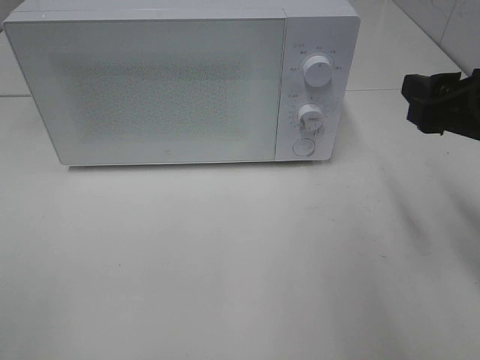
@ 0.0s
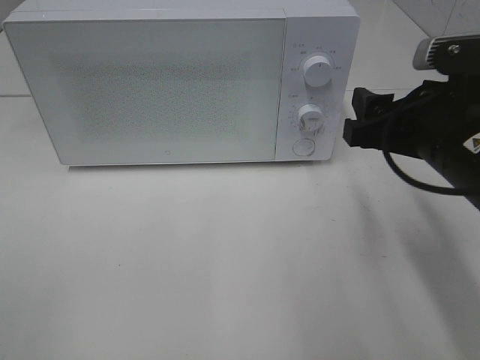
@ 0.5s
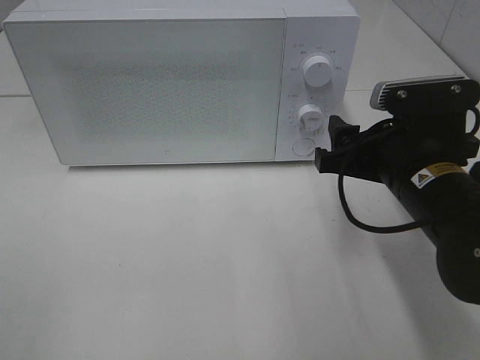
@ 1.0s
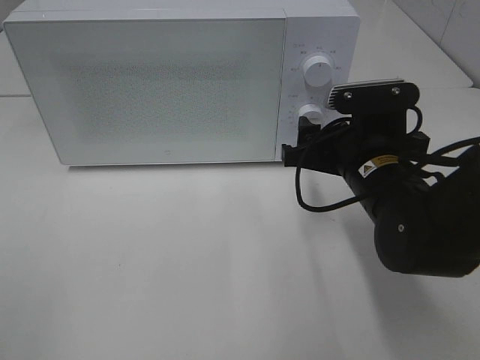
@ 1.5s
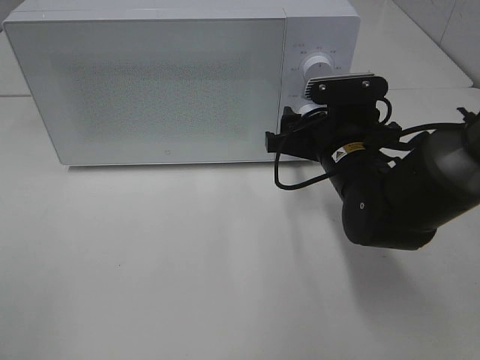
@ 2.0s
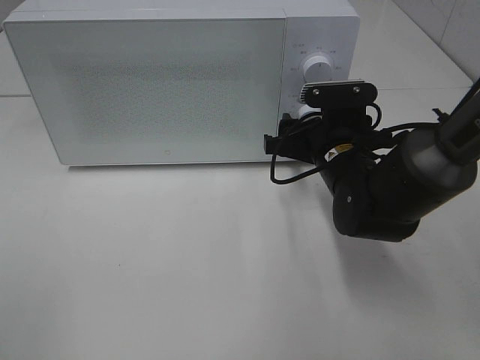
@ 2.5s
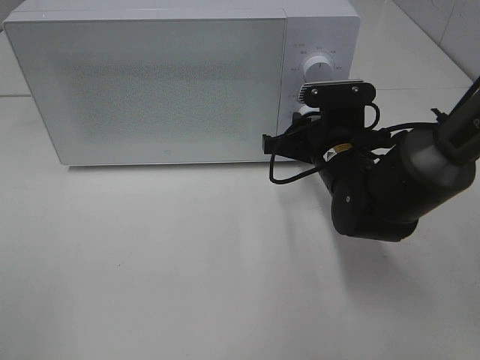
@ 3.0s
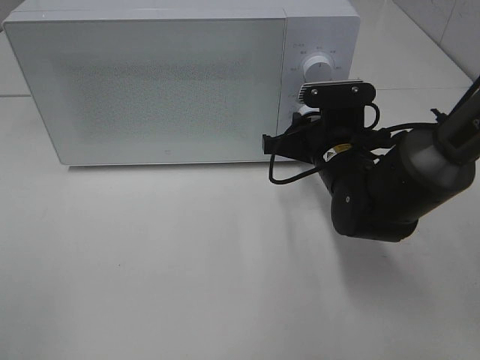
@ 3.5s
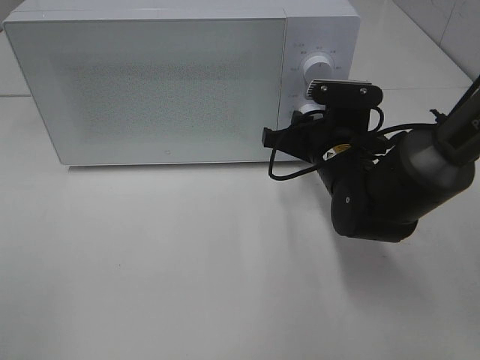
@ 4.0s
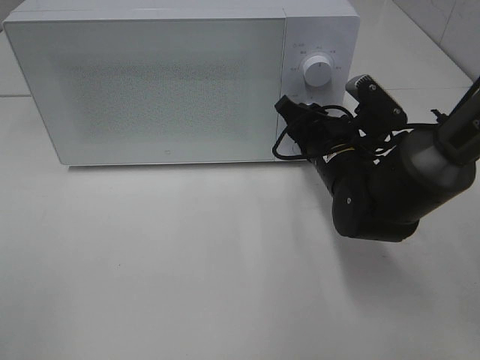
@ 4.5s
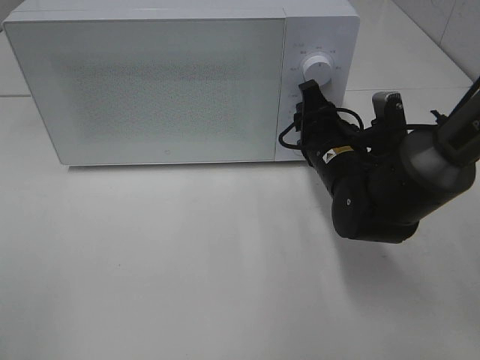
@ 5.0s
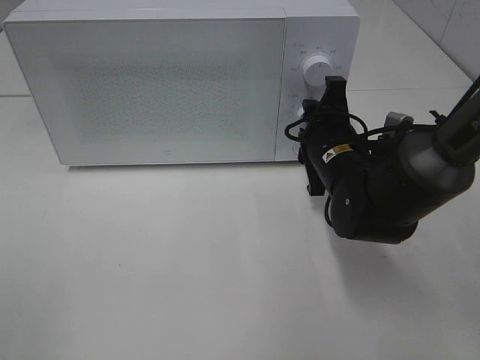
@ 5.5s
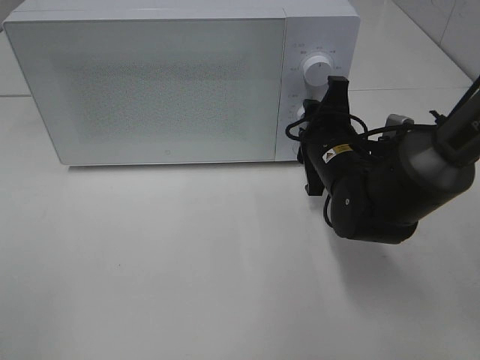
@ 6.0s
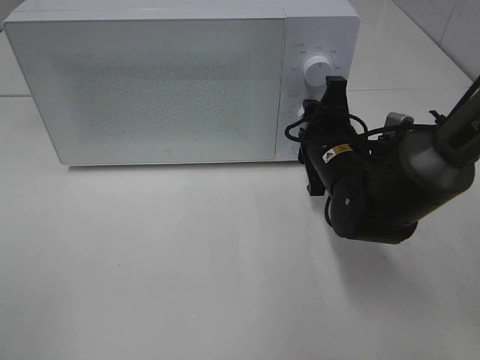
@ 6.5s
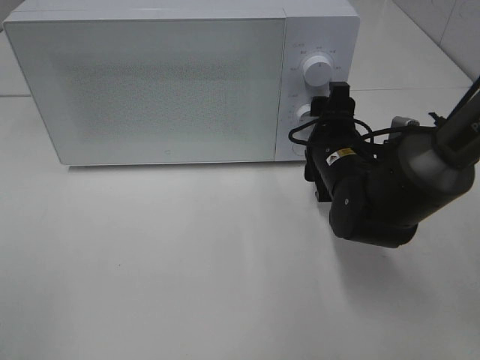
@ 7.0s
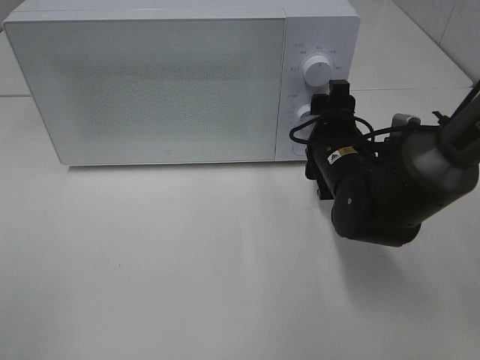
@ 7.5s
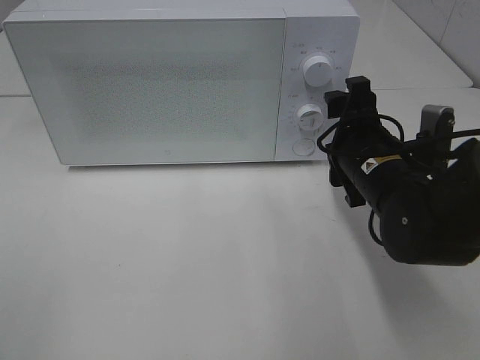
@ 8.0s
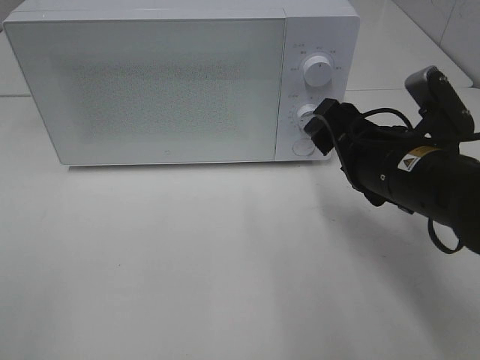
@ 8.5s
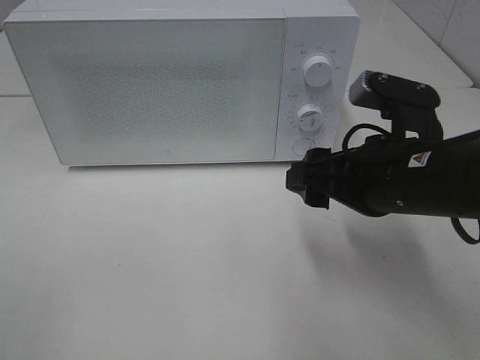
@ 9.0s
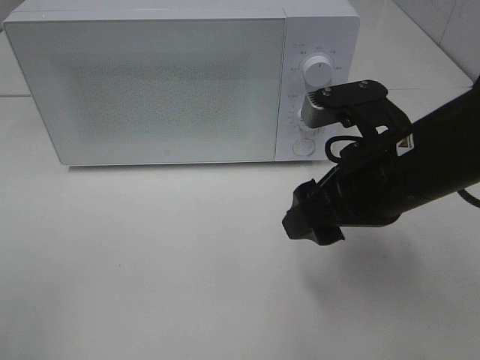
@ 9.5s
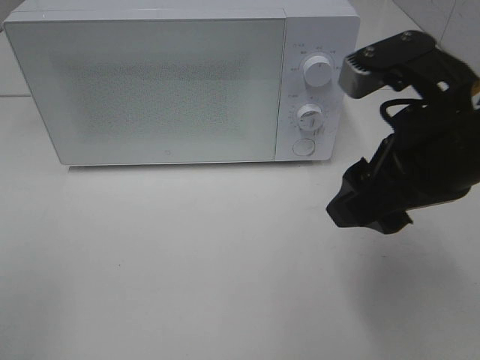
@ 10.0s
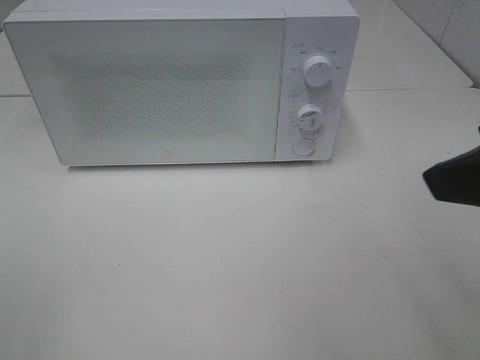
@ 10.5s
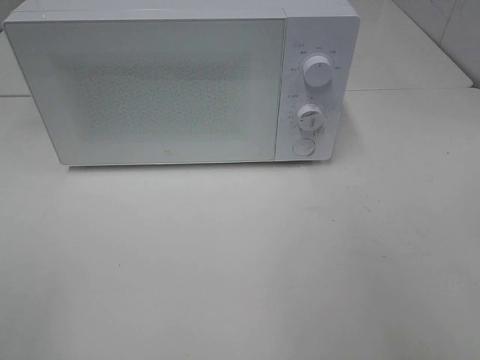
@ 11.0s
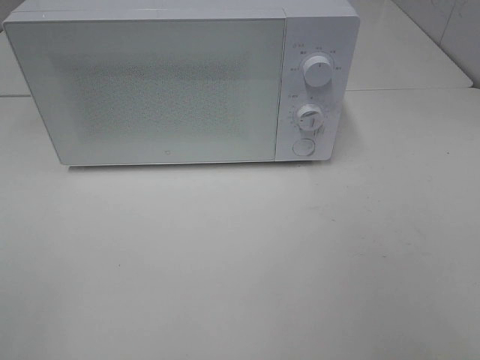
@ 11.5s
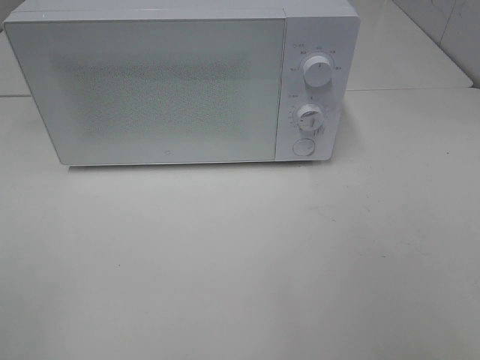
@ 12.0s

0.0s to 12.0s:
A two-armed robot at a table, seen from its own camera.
Task of the whole recording: Heat Sandwich.
Step, 0.0s to 7.5s: Right hand: twist timer button.
0.0s to 2.0s: The right gripper heads to the left, downward and forward, covering roughly 20 cm.
2.0s to 4.0s: The right gripper closes.
6.0s to 8.0s: The right gripper moves roughly 5 cm.
8.0s to 10.0s: The right gripper goes about 15 cm upward and backward.
10.0s to 12.0s: The right gripper shifts approximately 25 cm backward and to the right.

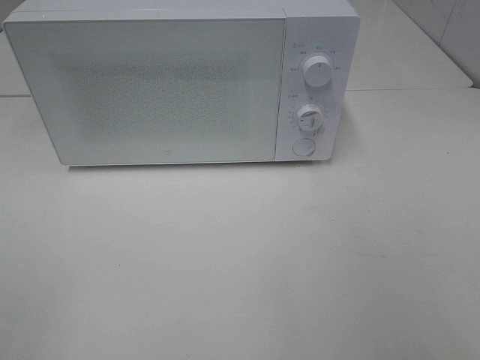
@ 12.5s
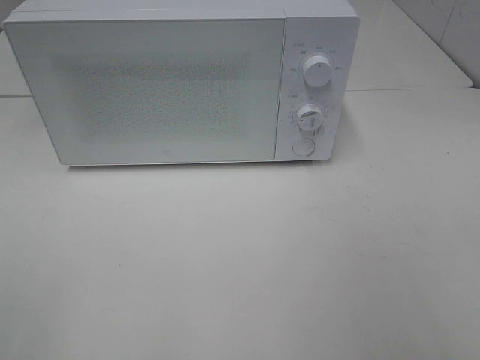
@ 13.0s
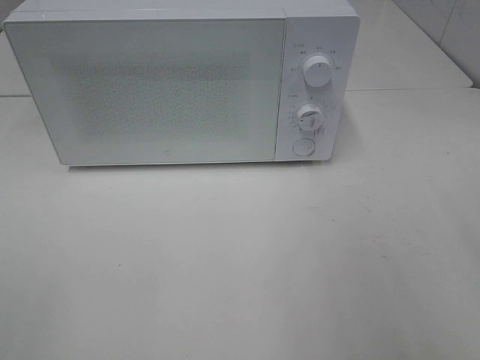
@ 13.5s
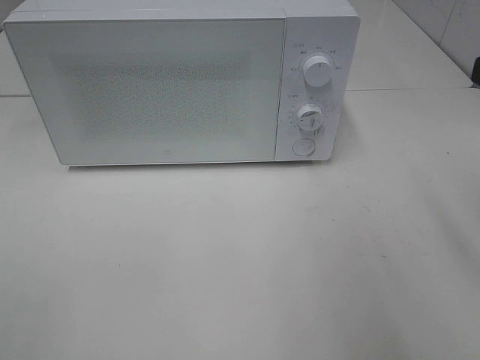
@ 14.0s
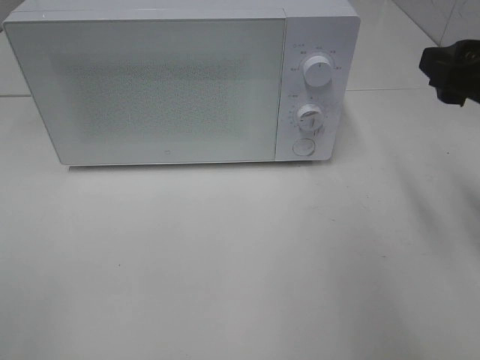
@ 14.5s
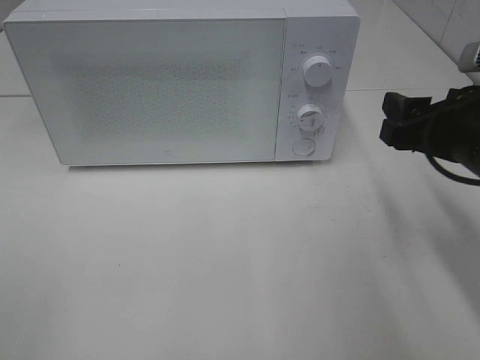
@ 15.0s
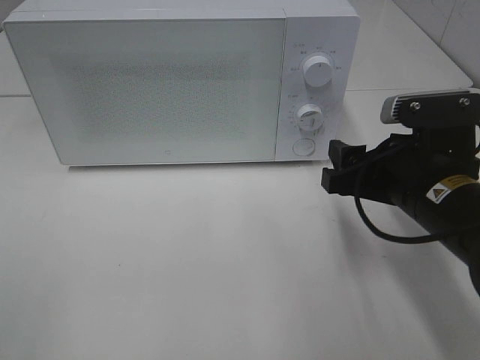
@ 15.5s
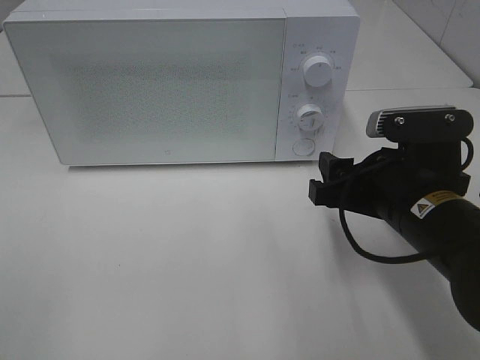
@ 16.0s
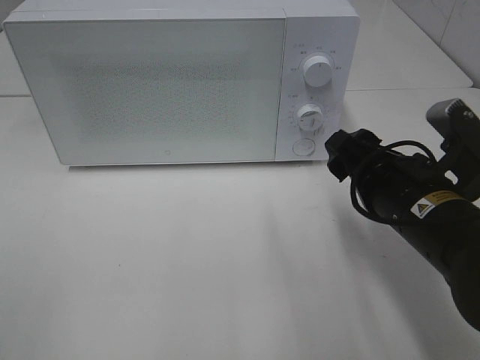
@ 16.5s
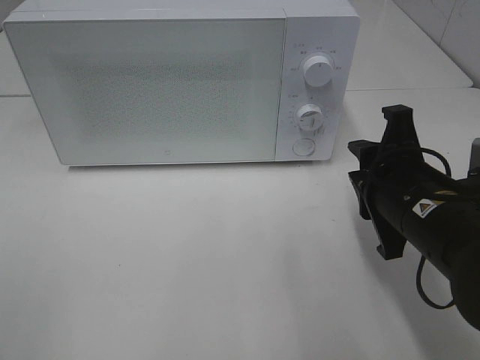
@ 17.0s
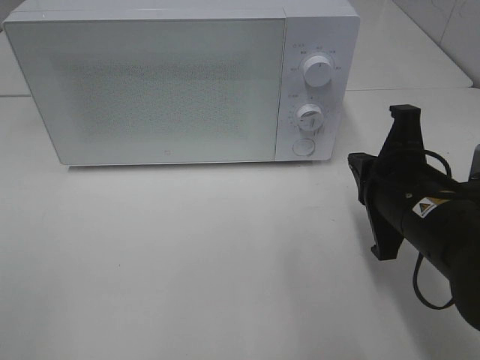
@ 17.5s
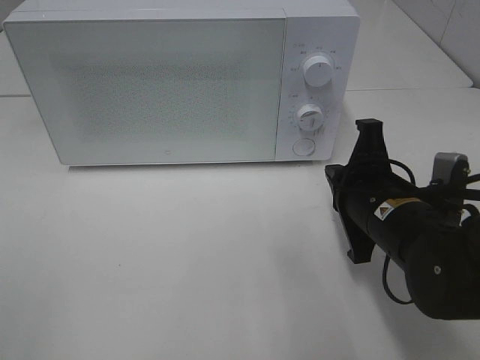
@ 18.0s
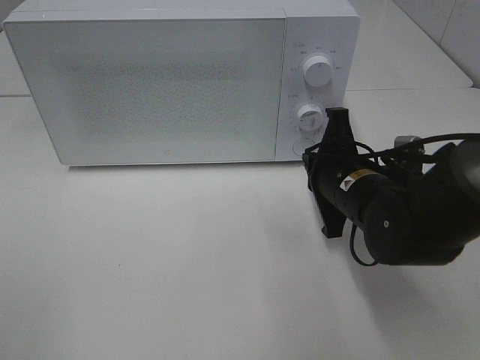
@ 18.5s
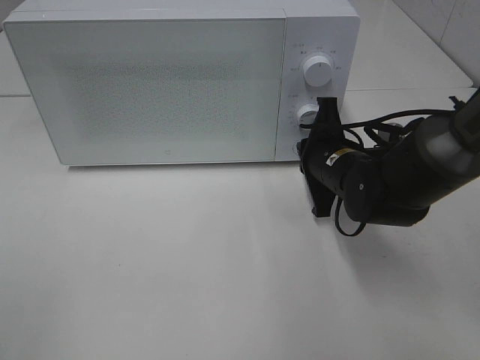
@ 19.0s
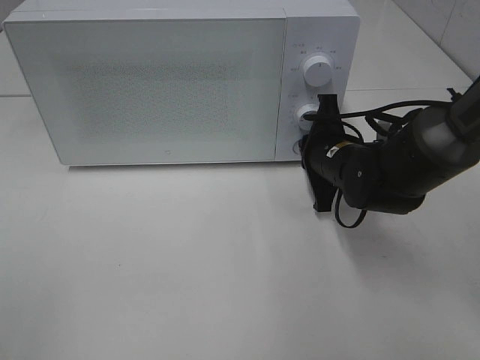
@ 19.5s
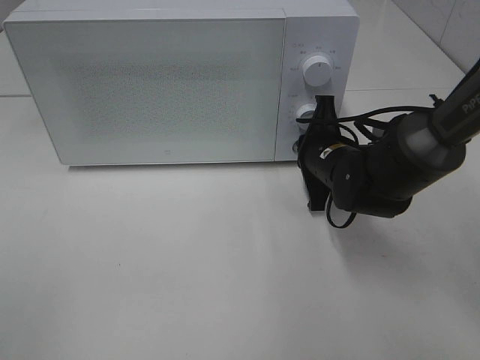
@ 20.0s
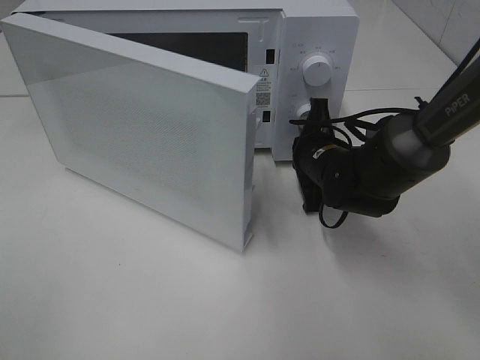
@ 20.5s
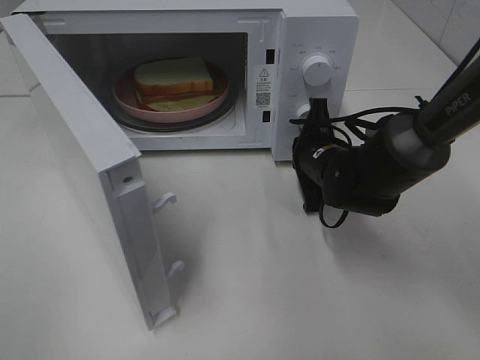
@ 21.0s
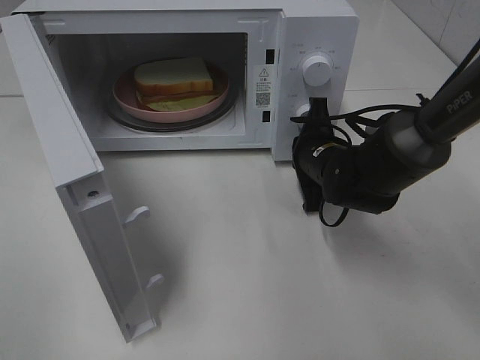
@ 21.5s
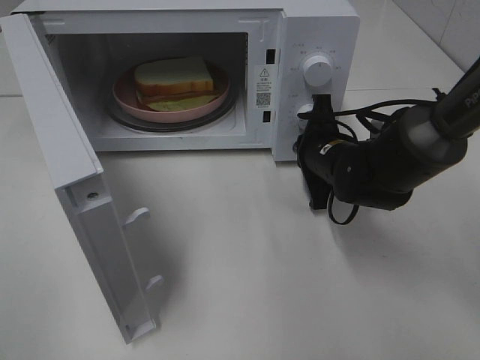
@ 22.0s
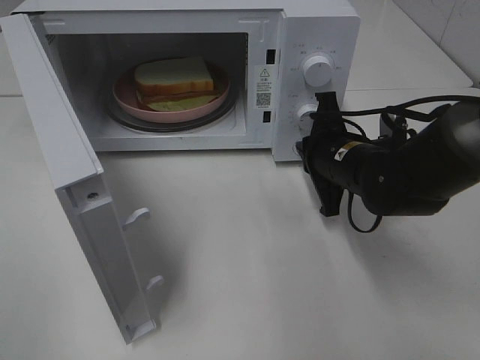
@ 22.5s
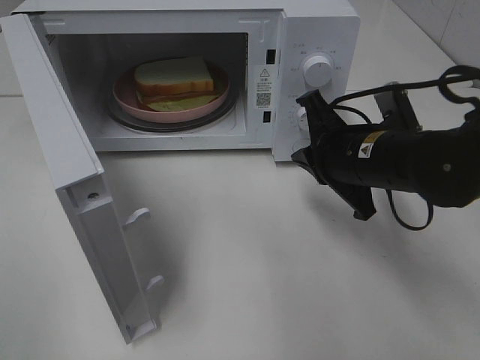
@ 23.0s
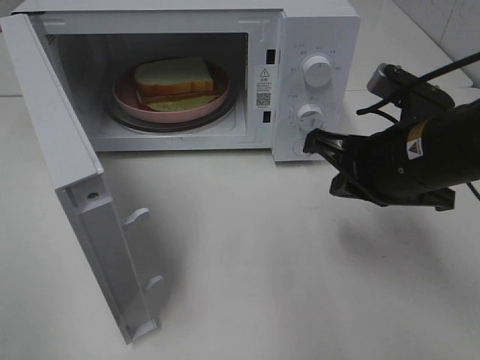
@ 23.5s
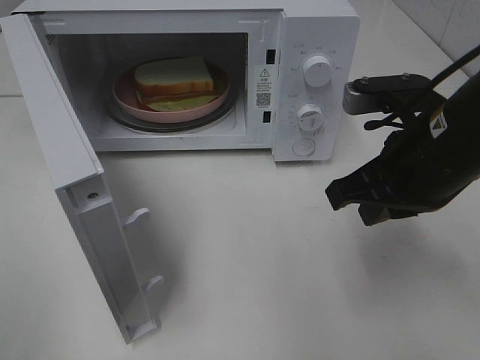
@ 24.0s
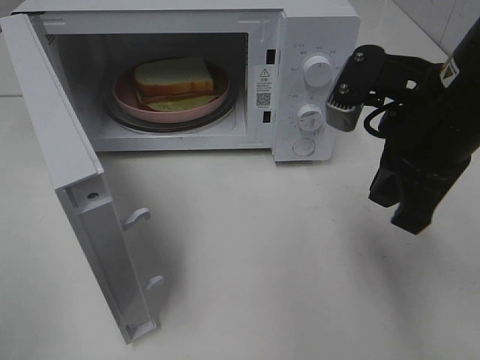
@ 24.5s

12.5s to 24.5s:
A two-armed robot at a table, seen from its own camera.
Task of the whole recording: Heat Sandwich.
Step, 12.5s to 22.5s: Right hand: press the switch.
12.5s to 14.5s: The right gripper moves forward, about 25 cm.
14.5s to 16.5s: The right gripper goes some 15 cm downward and to the left.
16.5s to 18.5s: The right gripper heads forward, covering roughly 10 cm, and closes its fingers.
18.5s to 20.5s: The right gripper goes approximately 10 cm forward.
22.5s to 24.5s: The right gripper is displaced upward and backward by some 15 cm.

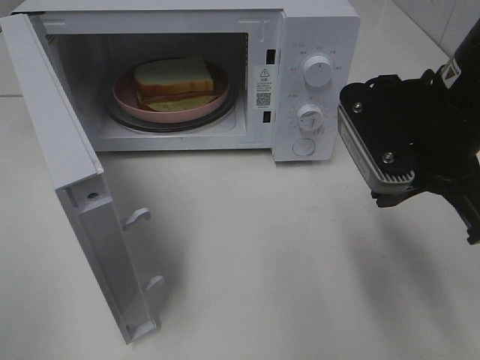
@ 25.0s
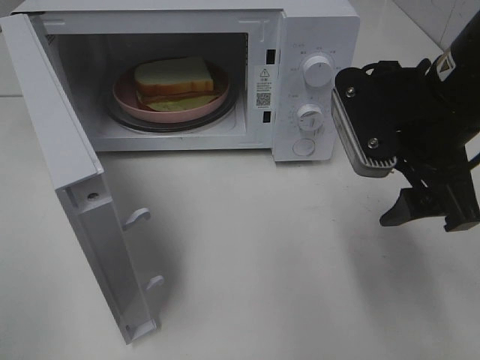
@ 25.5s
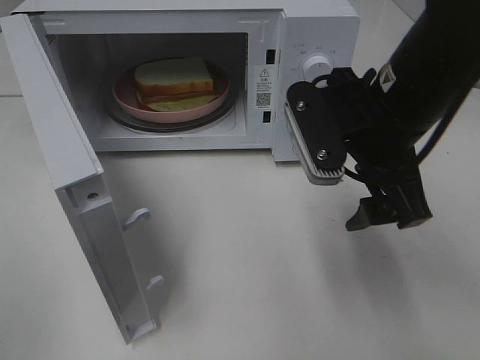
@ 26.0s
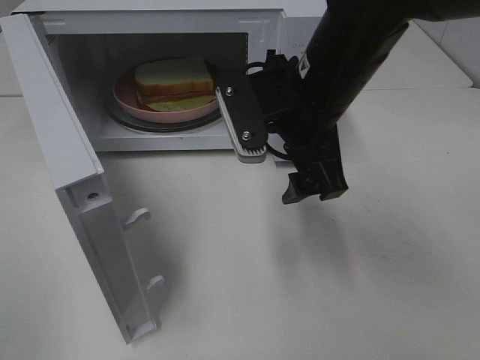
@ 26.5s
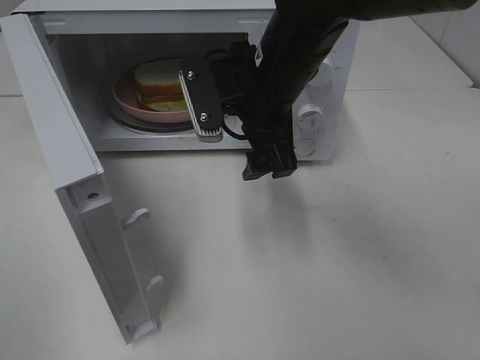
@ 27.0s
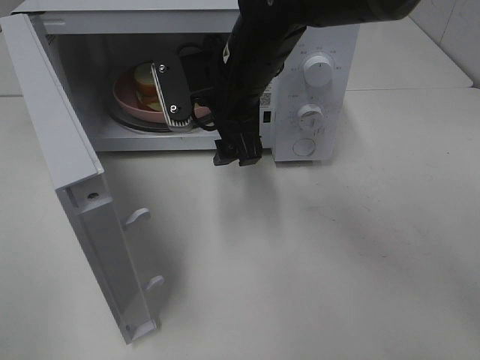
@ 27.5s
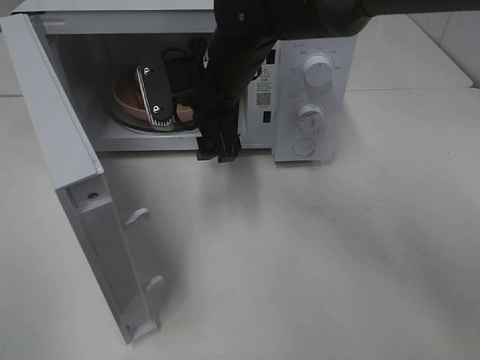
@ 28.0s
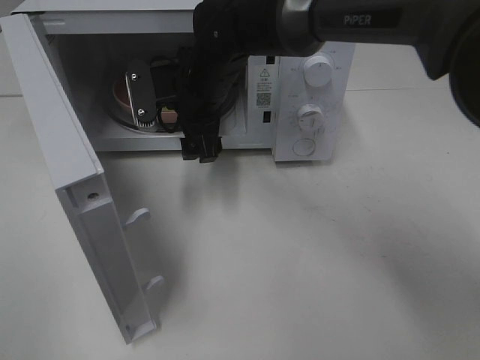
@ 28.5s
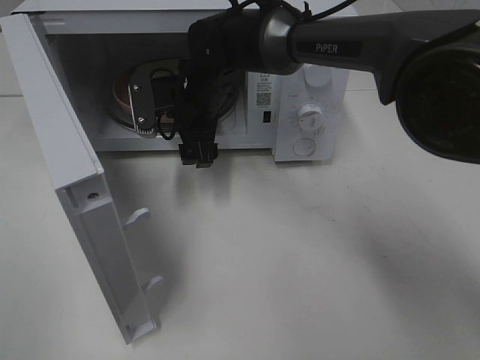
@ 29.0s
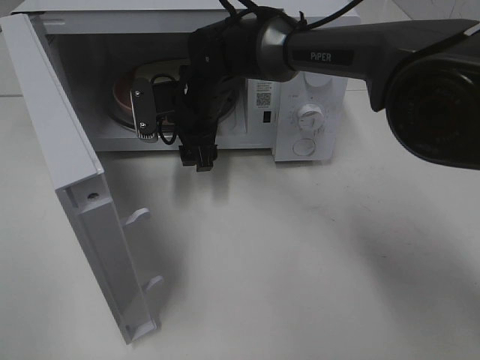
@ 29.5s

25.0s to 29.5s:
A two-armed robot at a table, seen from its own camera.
Task of the whole recording: Heat Sandwich.
25.0s to 27.0s: The right gripper moves to the left and forward, roughly 15 cm, and opens.
27.0s to 29.5s: The right gripper heads forward, downward and to the left, covering about 15 cm.
